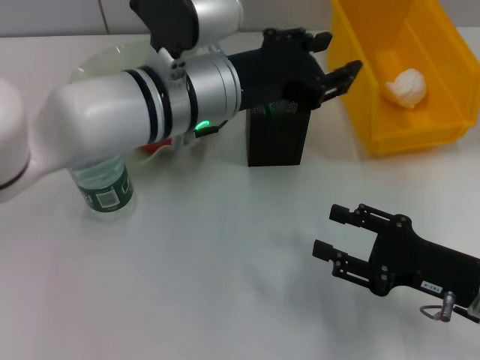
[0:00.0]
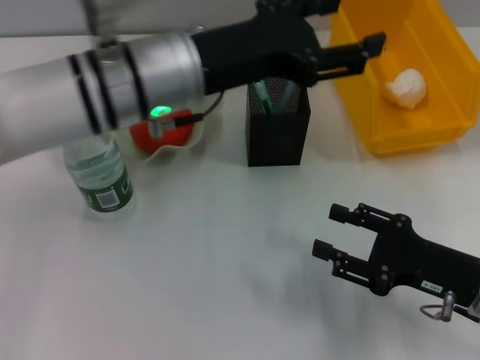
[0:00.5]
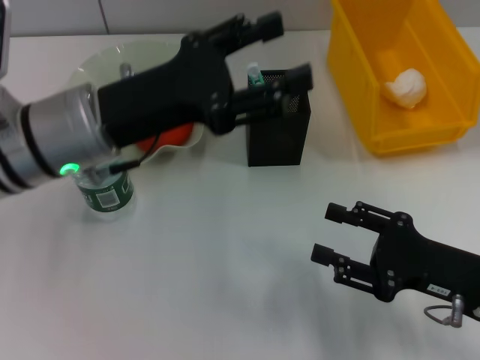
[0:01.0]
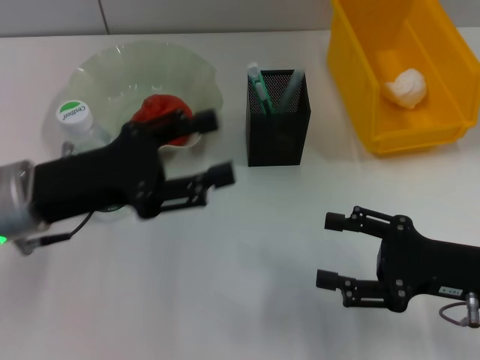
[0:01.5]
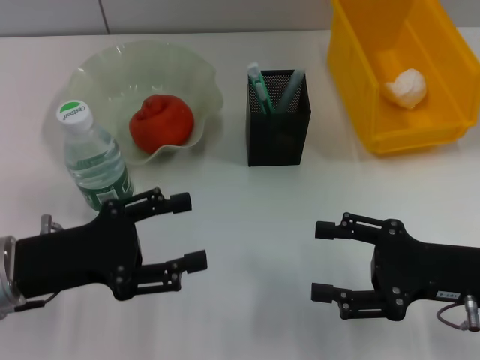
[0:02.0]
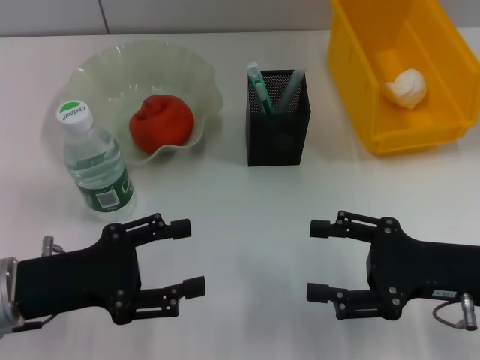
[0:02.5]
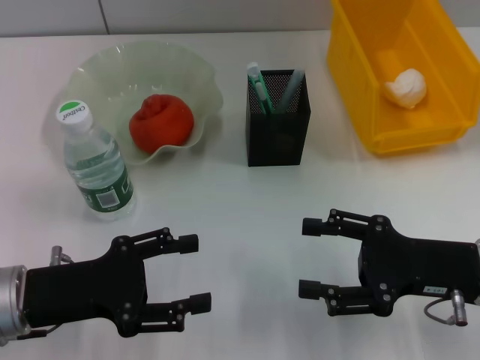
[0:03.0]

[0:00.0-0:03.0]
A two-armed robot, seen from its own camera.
0:00.0 to 0:01.5: The left gripper heads to the left and backward, covering some 15 cm, and opens its fingers.
0:01.5 to 0:03.0: The left gripper is displaced backward and downward by approximately 10 cm.

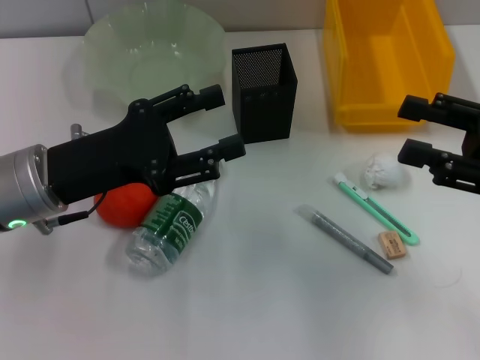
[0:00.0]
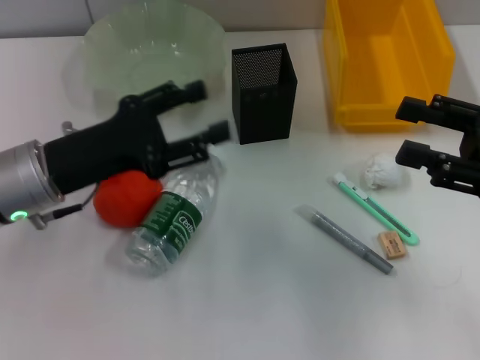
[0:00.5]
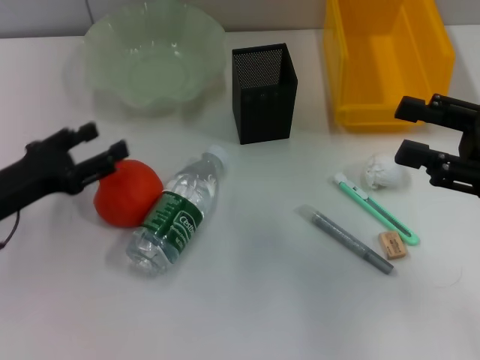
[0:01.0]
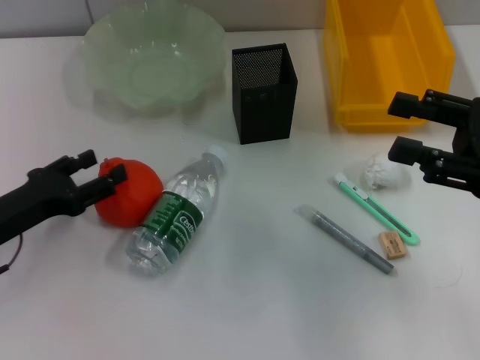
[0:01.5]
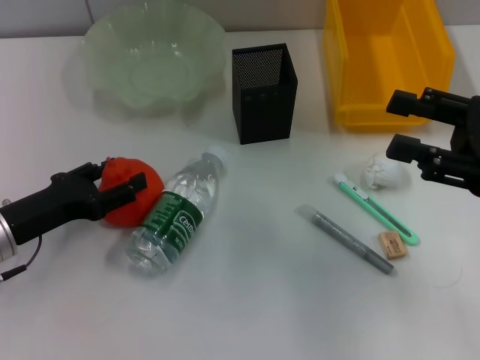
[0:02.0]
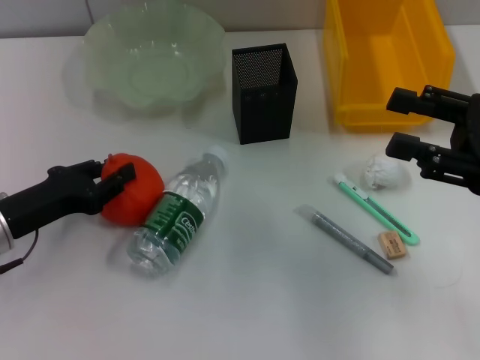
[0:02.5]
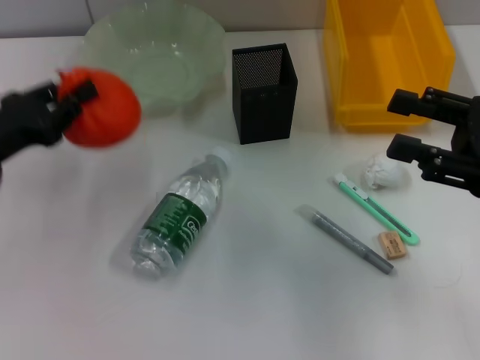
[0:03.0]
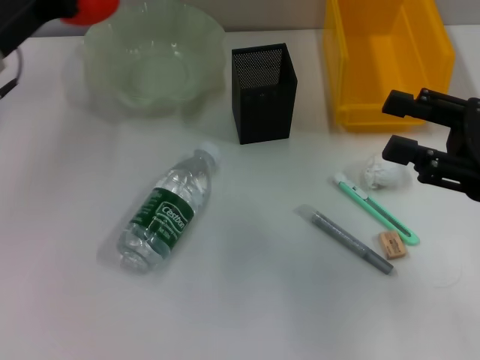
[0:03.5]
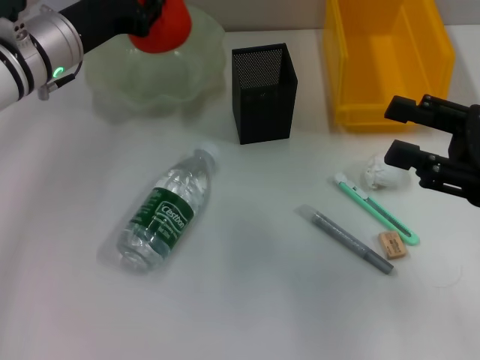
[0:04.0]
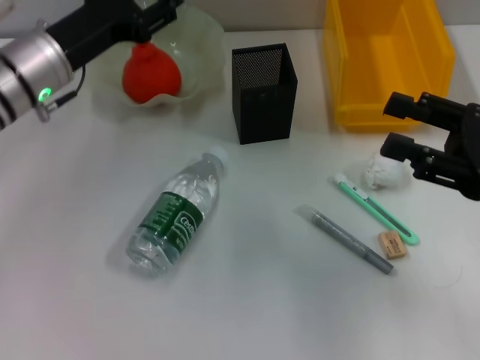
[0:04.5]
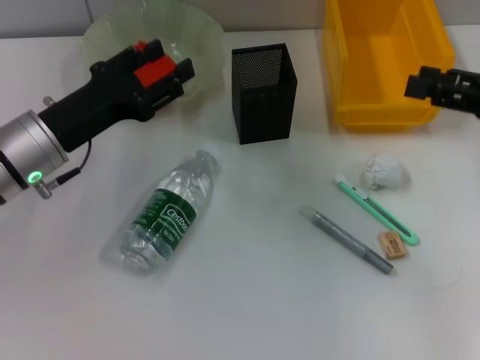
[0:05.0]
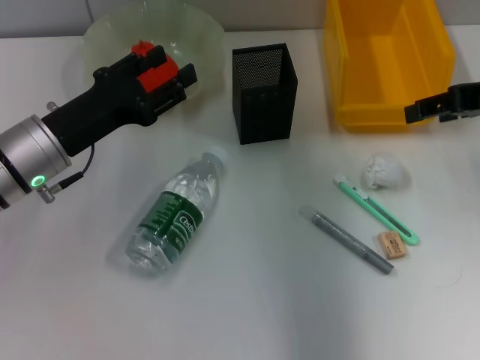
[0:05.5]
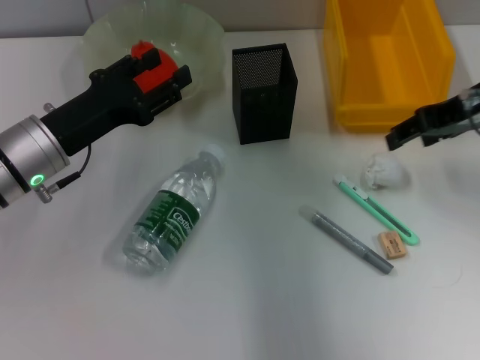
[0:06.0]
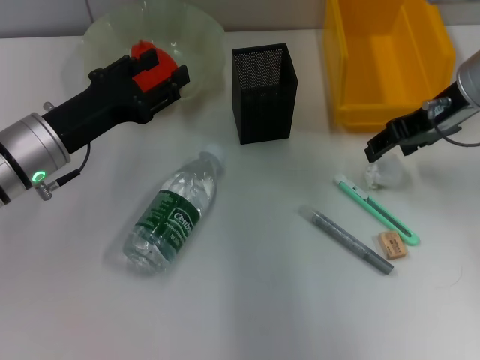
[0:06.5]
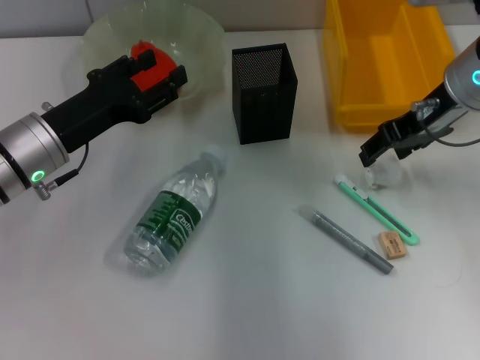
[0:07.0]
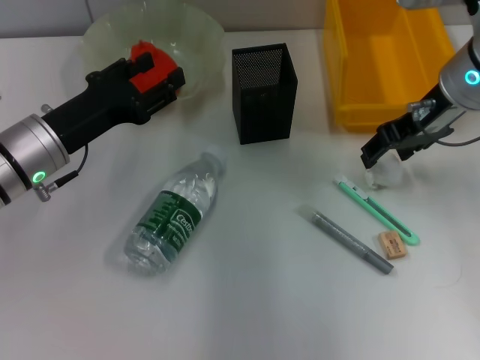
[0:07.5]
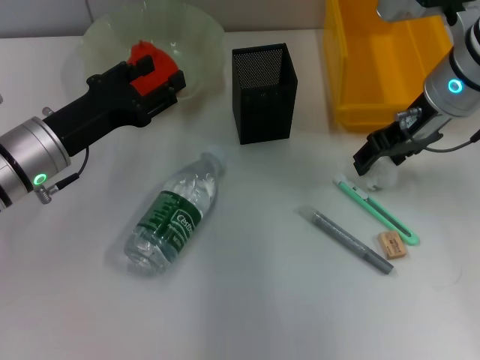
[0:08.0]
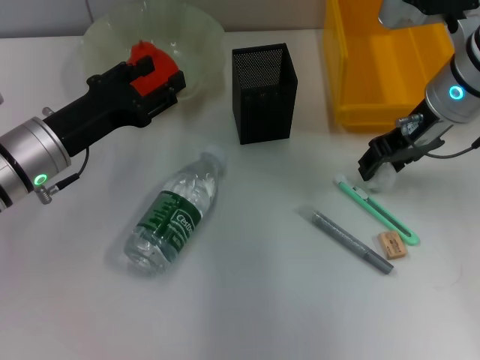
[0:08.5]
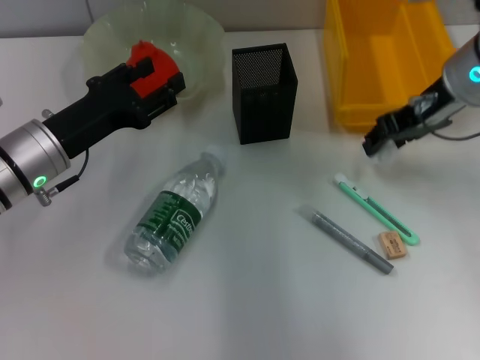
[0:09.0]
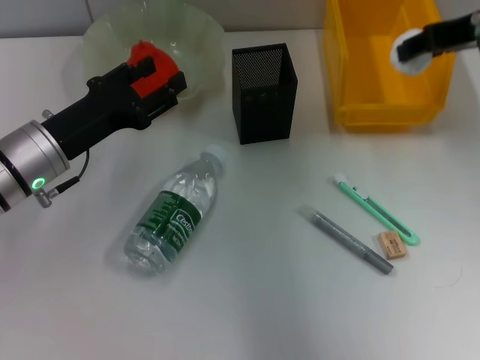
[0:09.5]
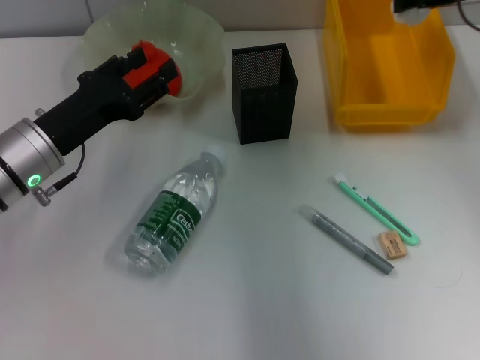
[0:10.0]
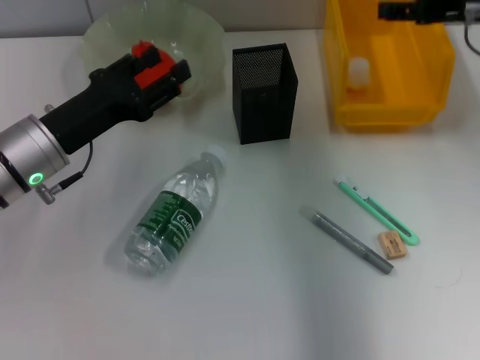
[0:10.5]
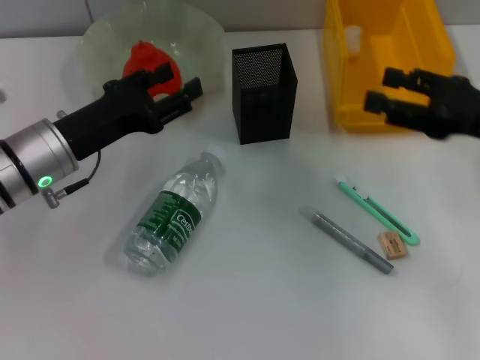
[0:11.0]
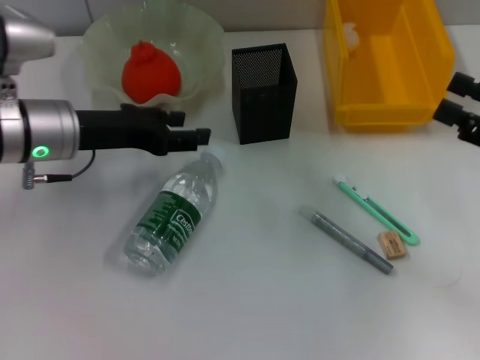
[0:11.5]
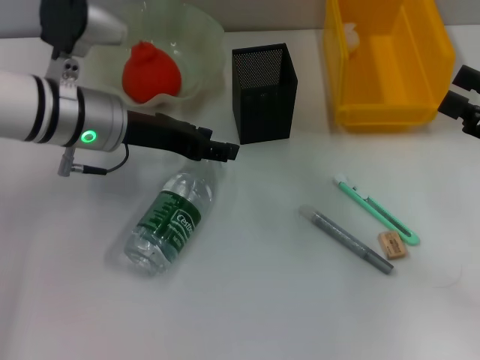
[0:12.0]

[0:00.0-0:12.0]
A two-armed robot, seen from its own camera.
Step, 0:00.0 to 0:02.0: Grab the orange with the left hand.
Step, 0:02.5 to 0:04.0: Place the orange into the fruit bowl with the left hand.
Step, 0:04.5 to 0:08.5: Grab the paper ball with the right hand.
Step, 0:09.0 to 0:10.0: Place the paper ball into the trash can with the right hand.
0:00.0 to 0:02.0: The left gripper is displaced downward and to the left by about 10 cm.
0:02.0 to 0:04.0: The left gripper moves forward, upward and to the right, roughly 20 cm, and closes up.
0:04.0 to 0:06.0: The left gripper heads backward, covering approximately 10 cm, and opens its fingers. The right gripper travels forward, upward and to the left by approximately 15 cm.
0:06.0 to 0:08.0: The right gripper goes about 5 cm to the left.
0:08.0 to 0:10.0: The right gripper shifts roughly 10 cm upward and to the right.
0:10.0 to 0:12.0: The left gripper heads to the right and upward, covering some 10 cm; the right gripper shifts about 20 cm backward, downward and to the right.

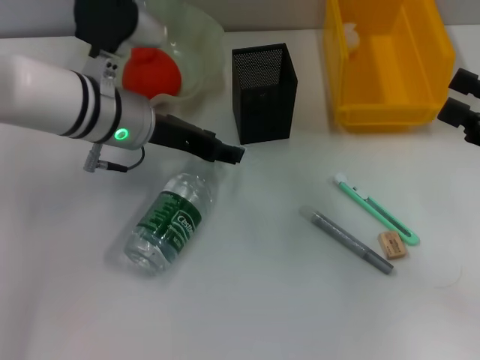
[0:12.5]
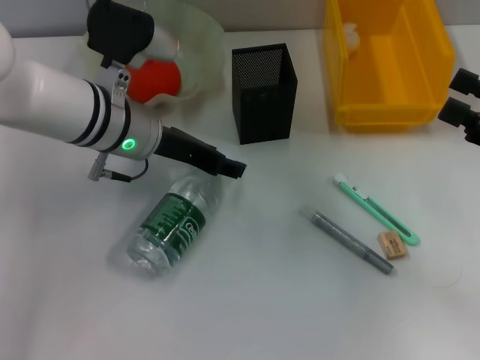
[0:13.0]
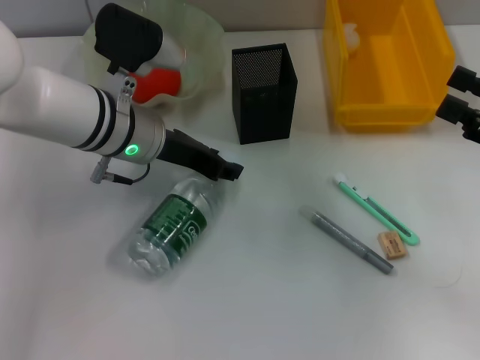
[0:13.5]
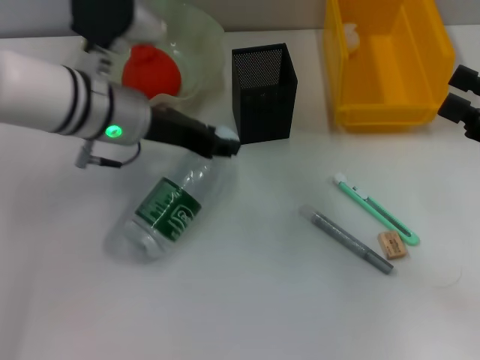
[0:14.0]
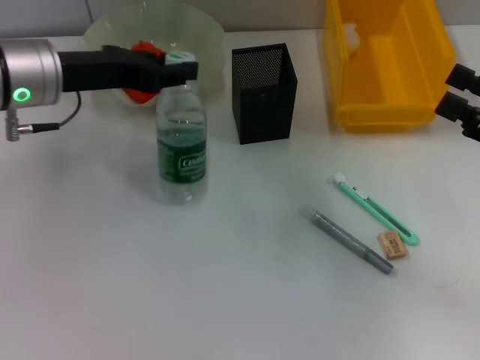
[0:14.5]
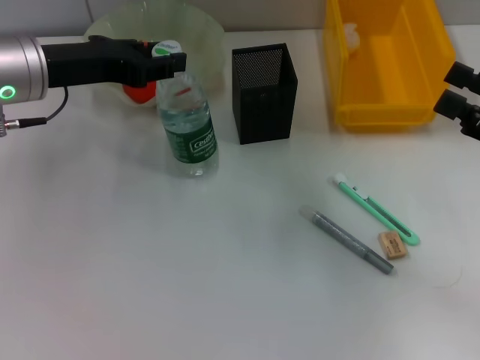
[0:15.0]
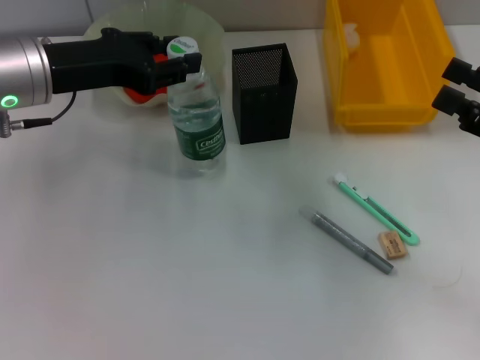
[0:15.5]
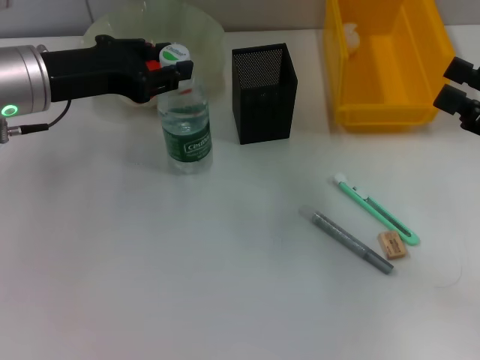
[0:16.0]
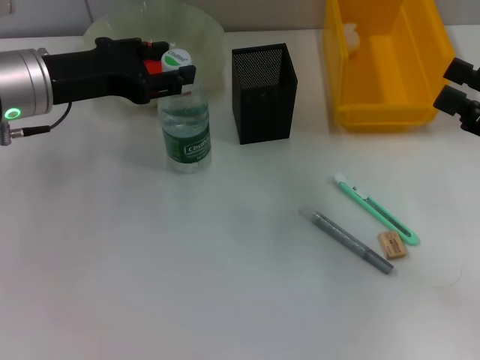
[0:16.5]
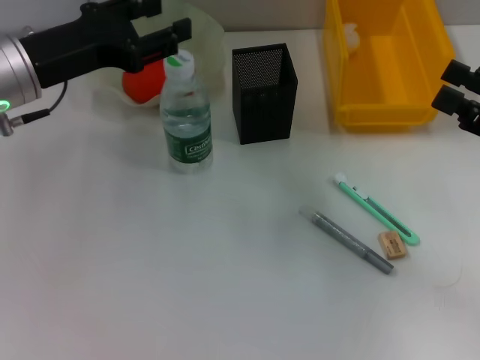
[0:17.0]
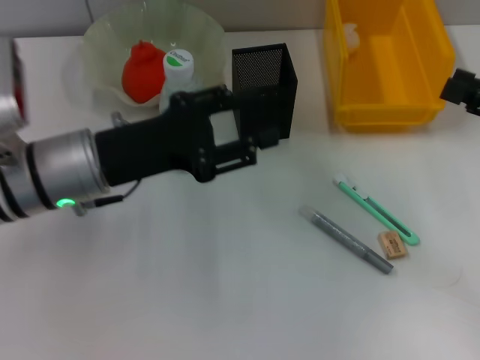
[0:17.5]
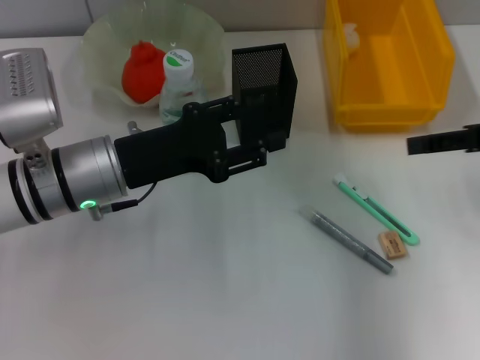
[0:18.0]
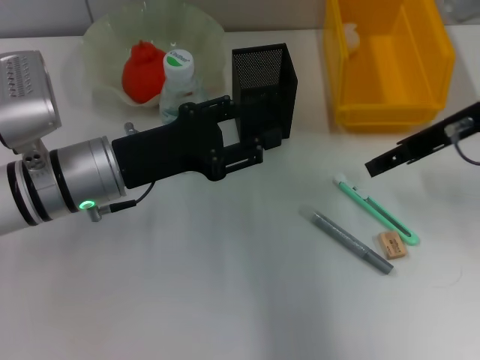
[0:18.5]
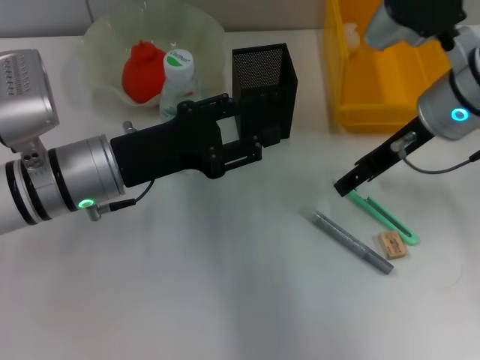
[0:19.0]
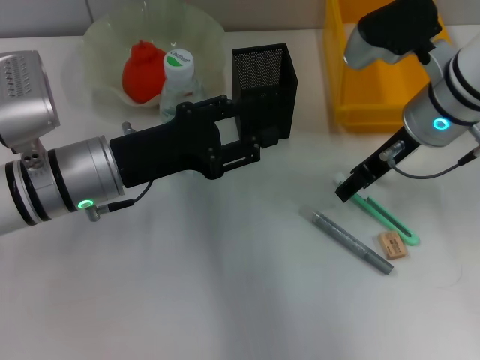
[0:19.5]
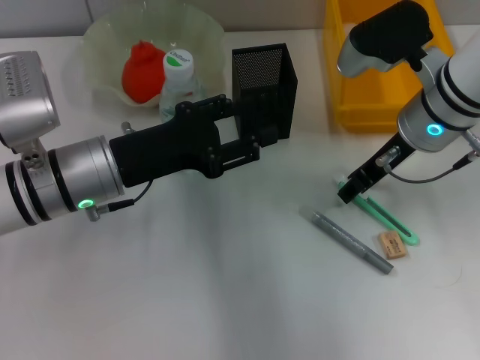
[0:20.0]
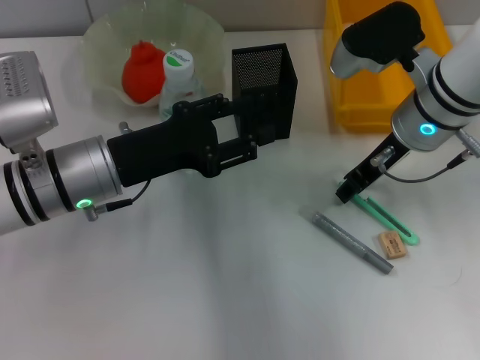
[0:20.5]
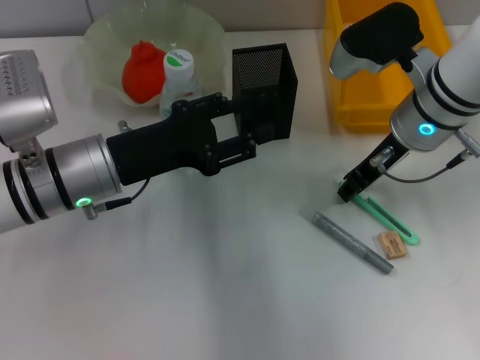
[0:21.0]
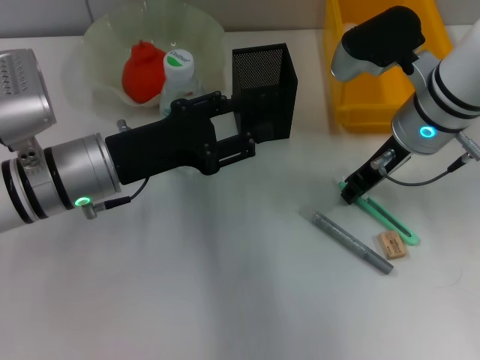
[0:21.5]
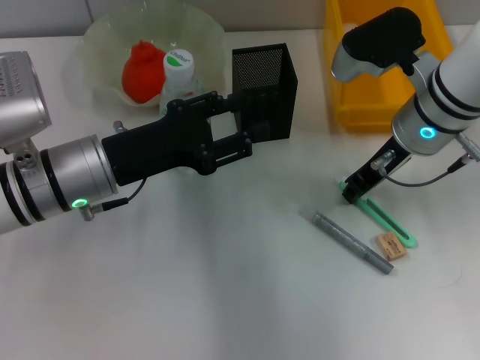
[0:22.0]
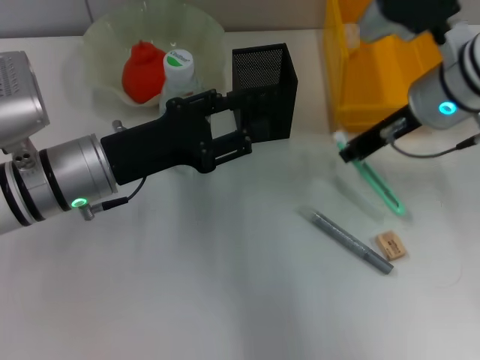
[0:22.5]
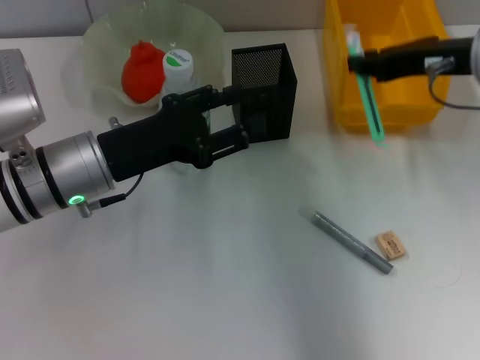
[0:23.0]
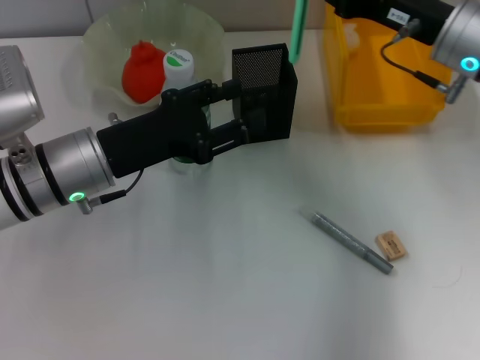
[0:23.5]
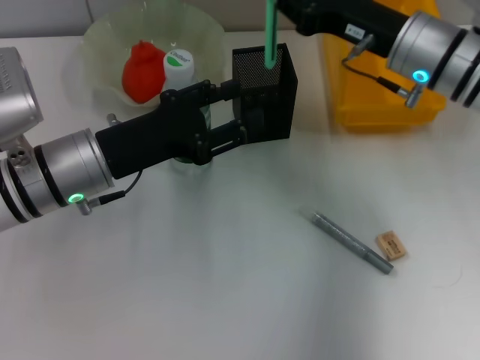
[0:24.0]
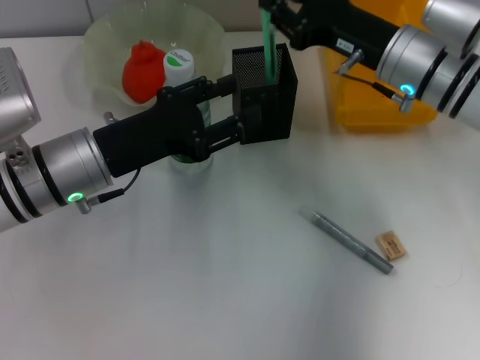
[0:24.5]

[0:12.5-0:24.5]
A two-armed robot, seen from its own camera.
Step, 0:13.5 to 0:16.5: Place the water bottle on the table with the left hand.
Step, 0:17.0 to 0:22.0: Grab the blue utility knife with the right hand.
0:12.5 to 0:14.5: The left gripper goes about 10 cm to the left and upward, and closes.
0:14.5 to 0:16.5: The grippers make only small movements.
0:16.5 to 0:18.5: The left gripper moves downward and to the right, approximately 10 cm; the right gripper is displaced to the left, forward and upward by some 15 cm.
0:18.5 to 0:20.5: The right gripper heads to the left, covering roughly 5 cm, and closes.
0:20.5 to 0:22.5: The right gripper closes.
